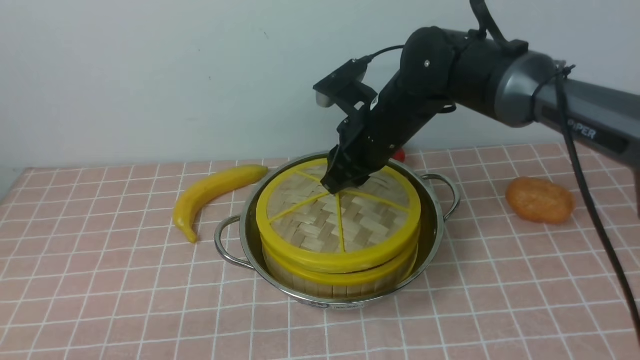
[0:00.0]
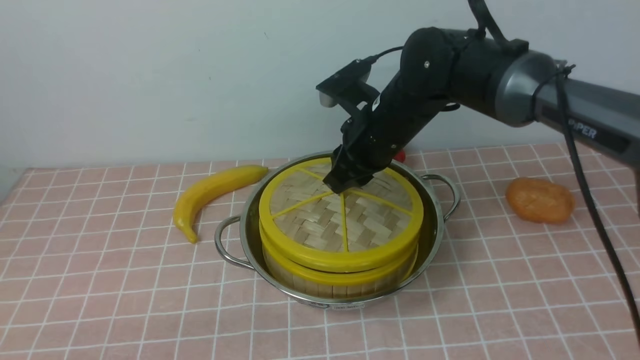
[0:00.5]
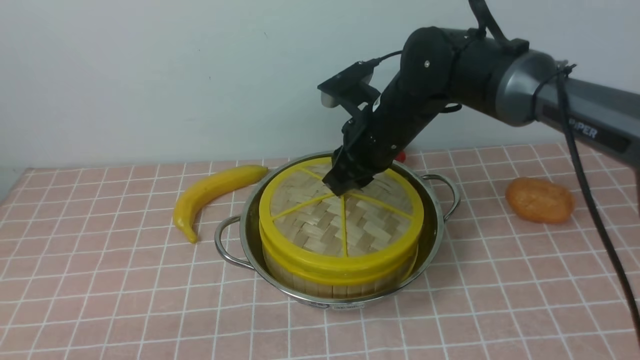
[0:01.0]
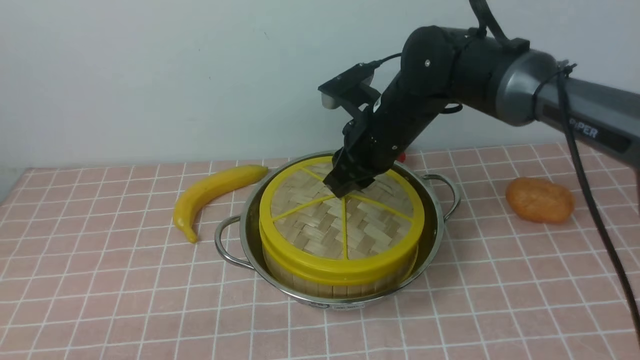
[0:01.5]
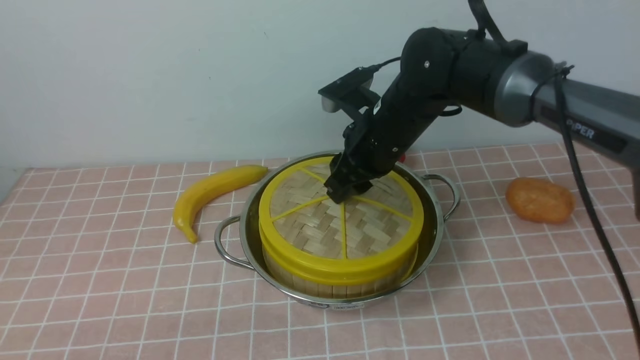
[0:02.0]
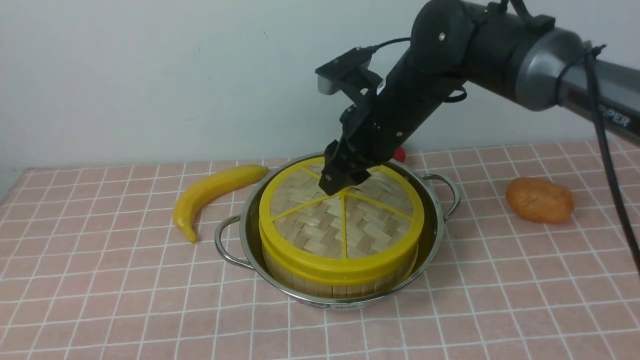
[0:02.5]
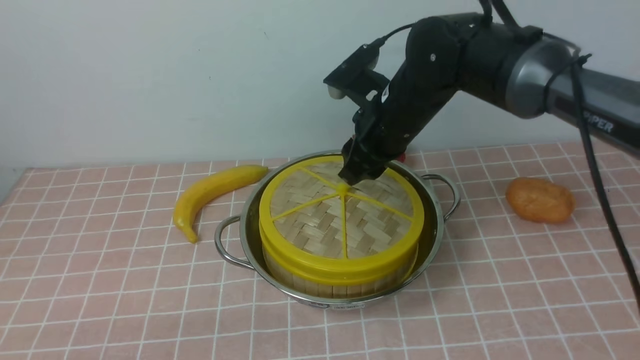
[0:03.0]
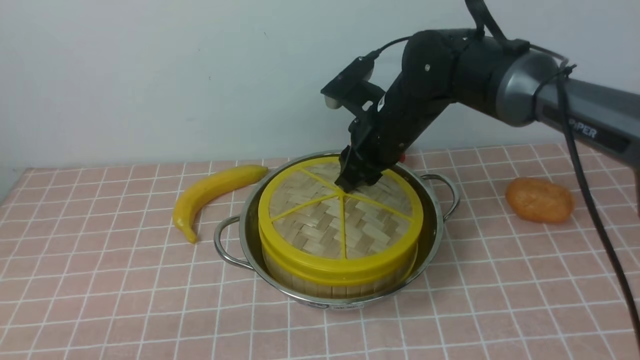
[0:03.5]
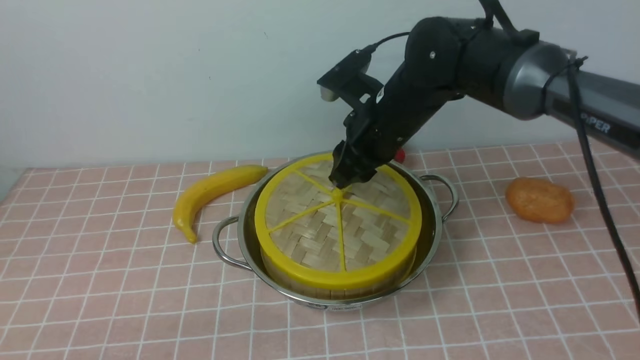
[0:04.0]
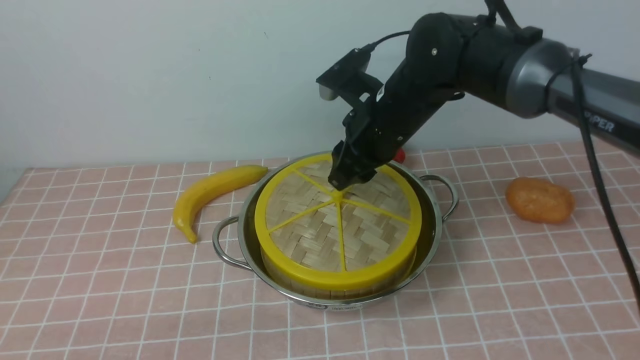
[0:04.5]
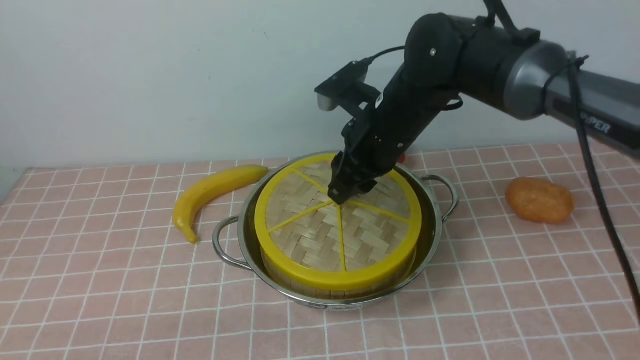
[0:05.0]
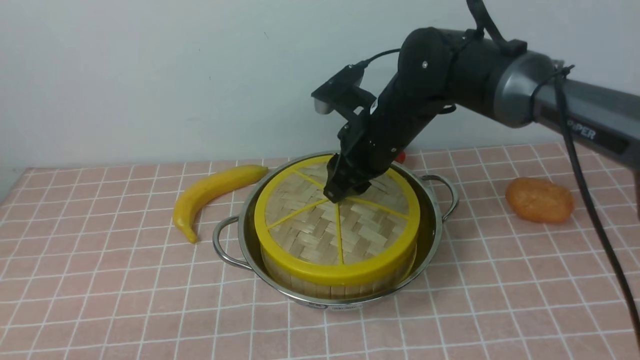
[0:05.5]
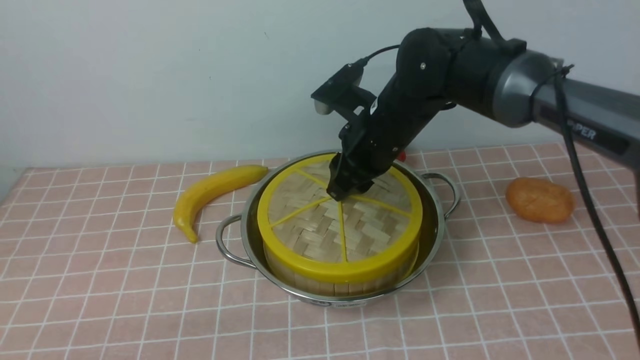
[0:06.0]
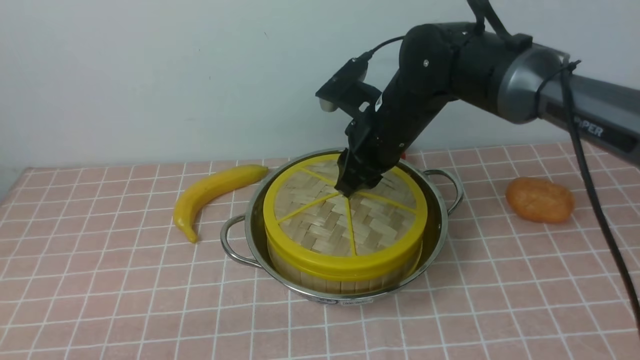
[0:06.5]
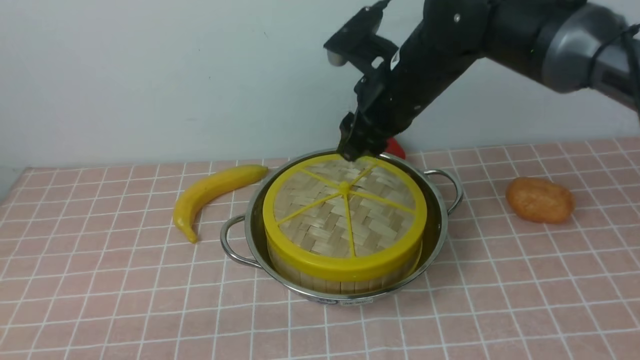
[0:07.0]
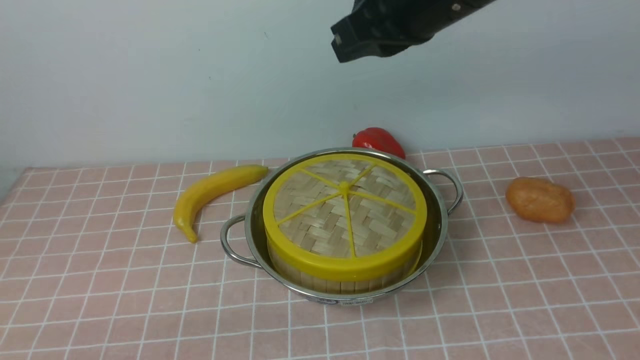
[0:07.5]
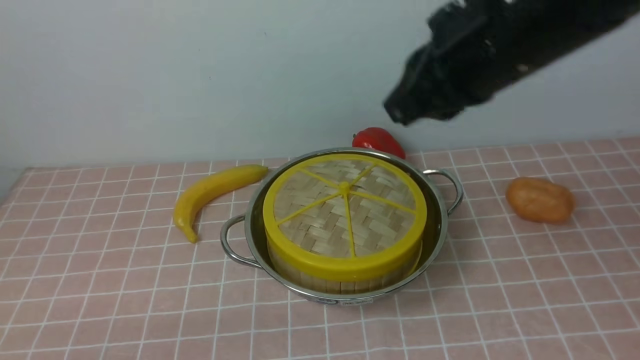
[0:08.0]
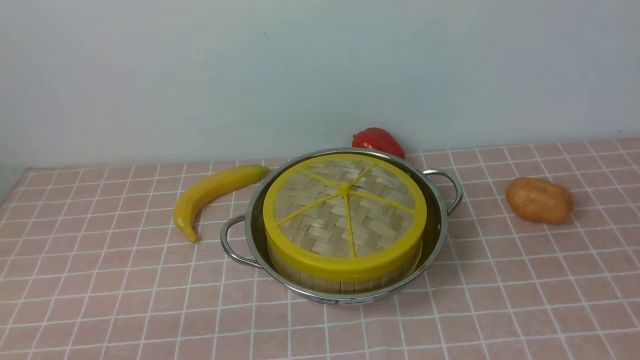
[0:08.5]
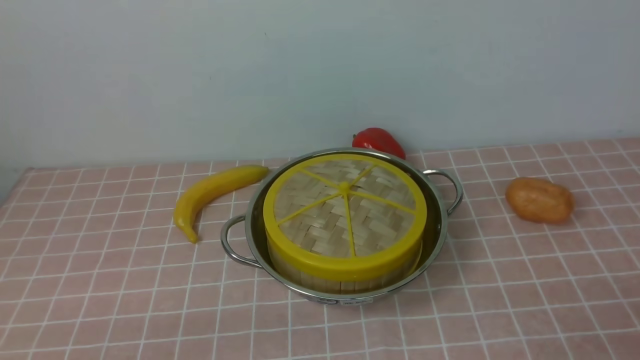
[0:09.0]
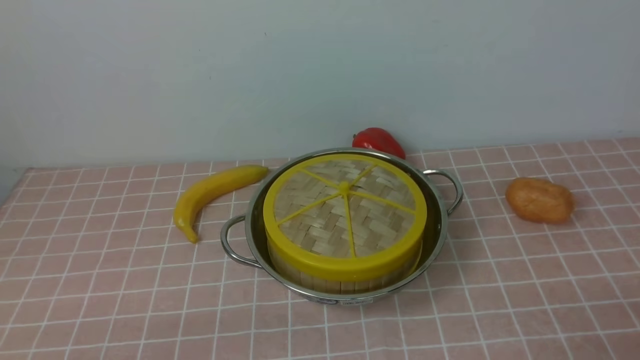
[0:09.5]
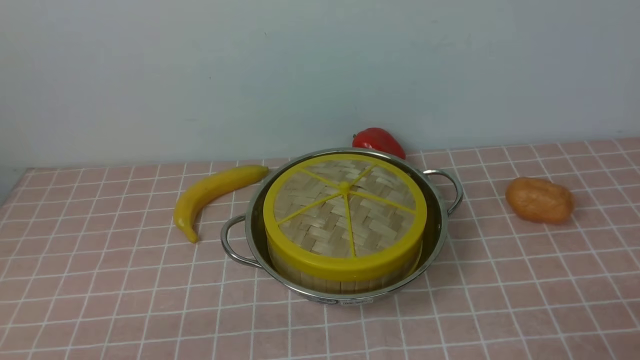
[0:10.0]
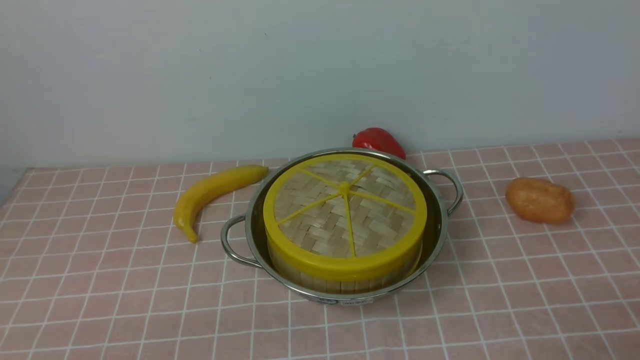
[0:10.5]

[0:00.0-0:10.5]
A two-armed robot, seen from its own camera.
Task of the whole recording: place the steamer in the pot on the pink tablecloth, and put the lid on the steamer.
Step, 0:00.0 to 0:06.5: use the right arm to place the steamer lid on the steamer.
0:00.0 to 0:02.0: The right gripper opens up.
0:02.0 to 0:06.5: The grippers move only a little.
0:06.5 to 0:08.5: The right gripper heads backward and to the right, covering about 40 cm.
0:08.5 to 0:10.5: The right gripper goes about 10 cm downward, and opens up.
